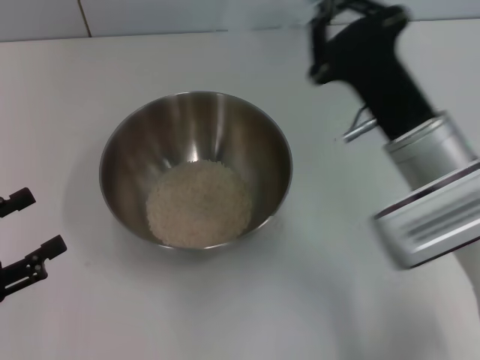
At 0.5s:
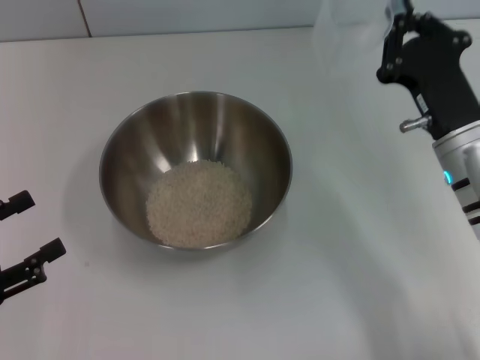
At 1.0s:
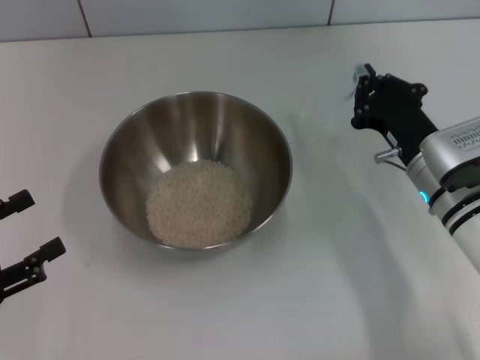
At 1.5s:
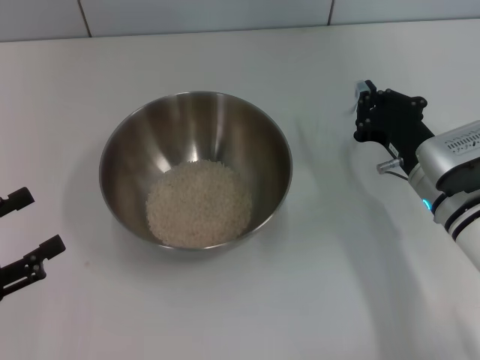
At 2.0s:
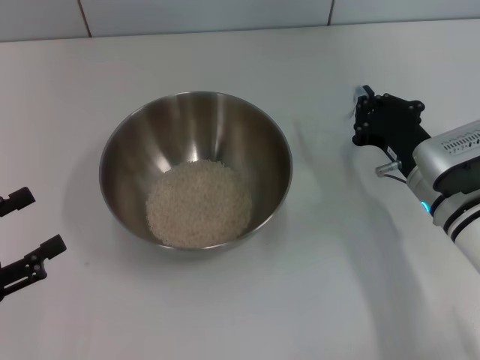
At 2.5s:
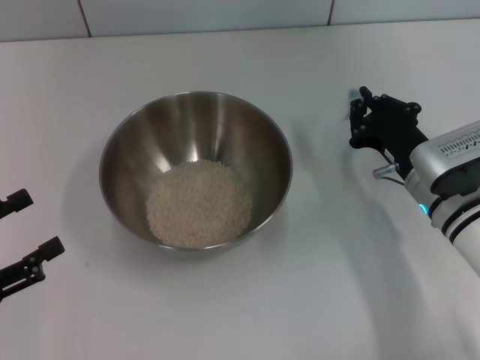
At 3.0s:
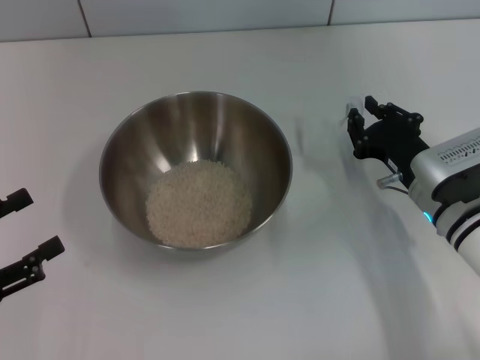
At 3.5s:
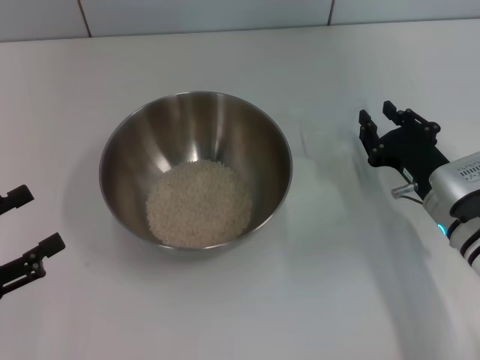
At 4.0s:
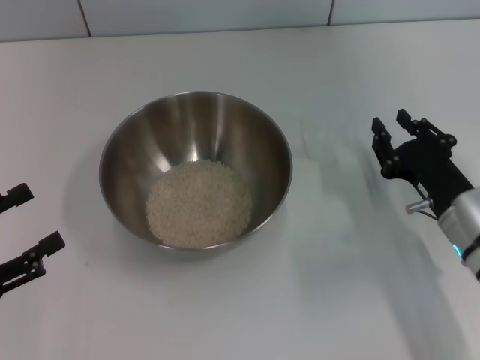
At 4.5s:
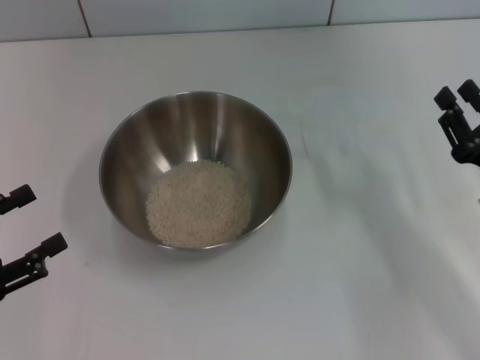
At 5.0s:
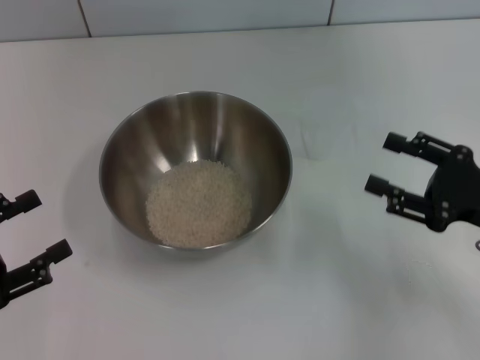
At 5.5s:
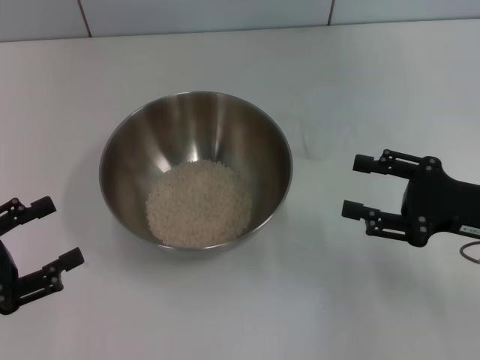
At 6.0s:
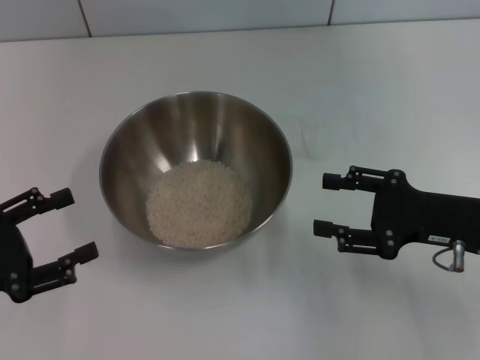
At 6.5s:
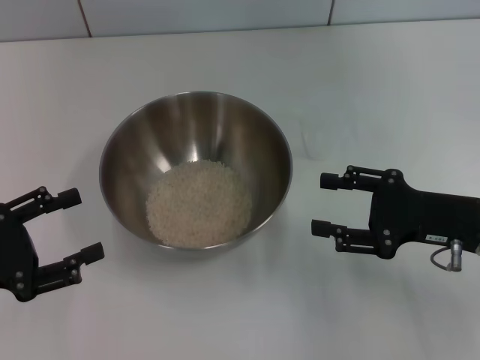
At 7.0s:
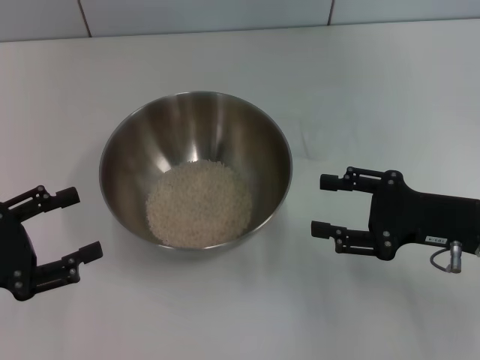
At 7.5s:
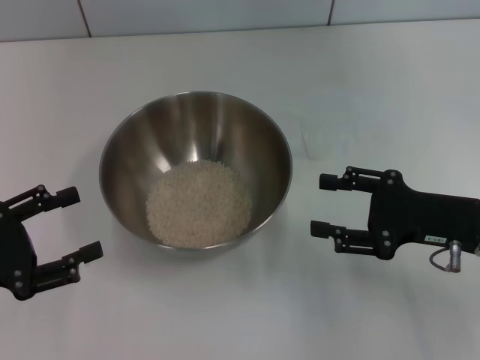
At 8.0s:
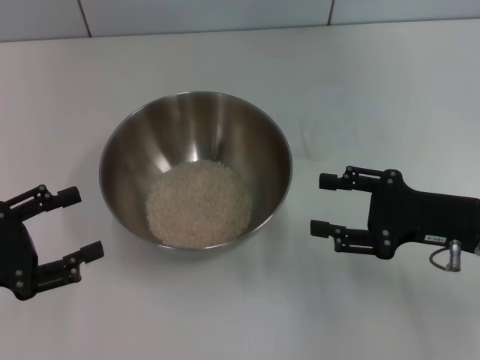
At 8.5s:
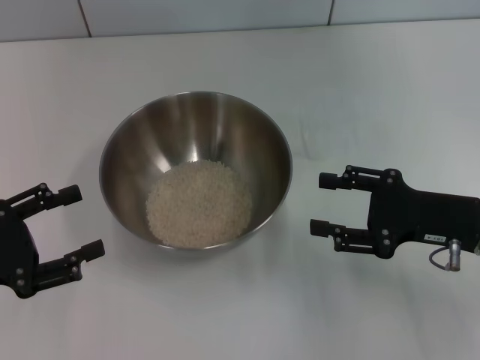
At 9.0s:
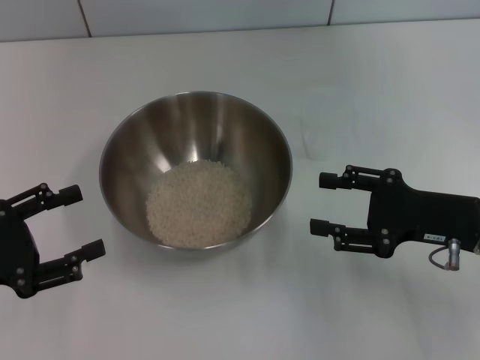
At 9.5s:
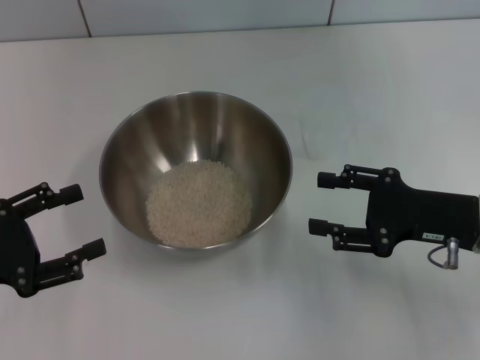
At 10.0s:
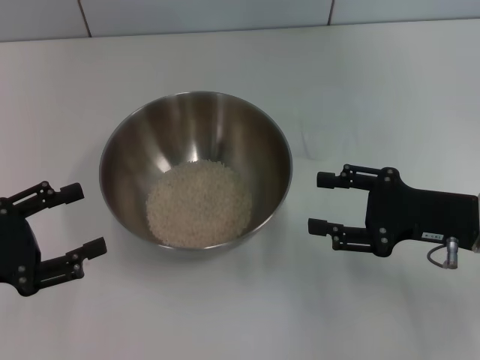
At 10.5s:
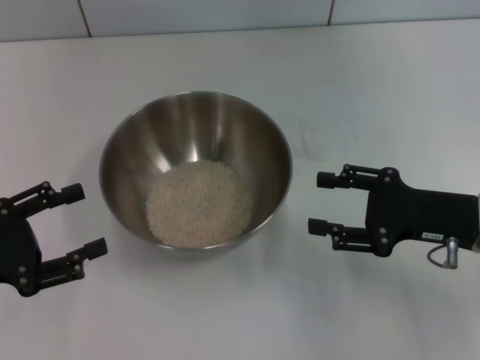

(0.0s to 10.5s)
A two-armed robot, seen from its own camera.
Task of the whole recording: Place the bowl in the middle of the table with one hand and pour the rice from the grain cup into it with the other hand.
Step, 0.0s - 4.0s: Place the cup on the table with the right gripper.
0.0s - 2.0s: The right gripper moves downward and to the right, some 10 cm.
2.0s - 4.0s: The right gripper moves approximately 5 cm, and opens up.
4.0s - 6.5s: The right gripper moves upward, roughly 5 cm, and opens.
6.5s - 10.5s: Neither gripper changes place.
